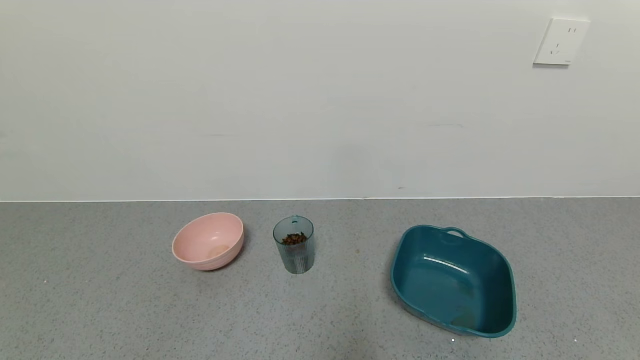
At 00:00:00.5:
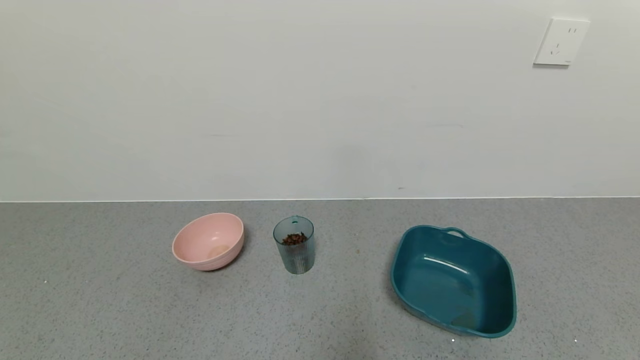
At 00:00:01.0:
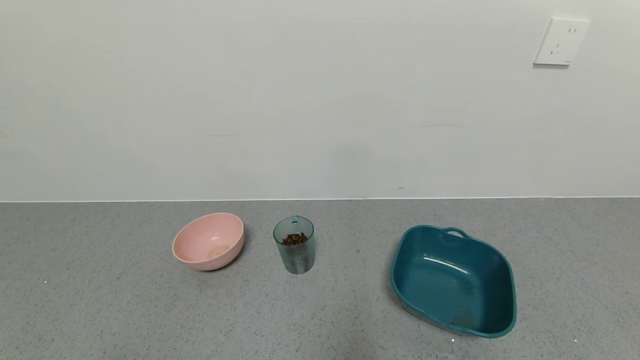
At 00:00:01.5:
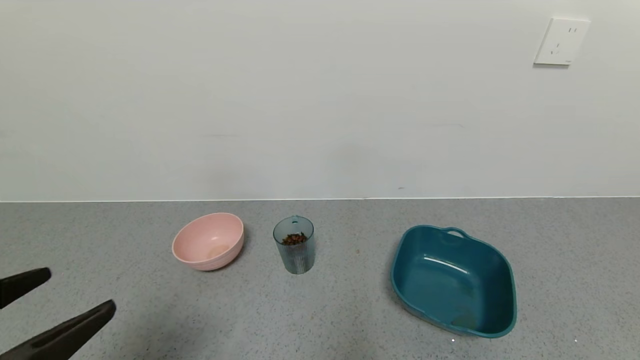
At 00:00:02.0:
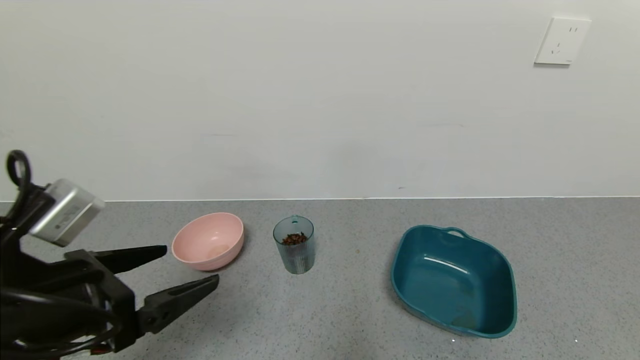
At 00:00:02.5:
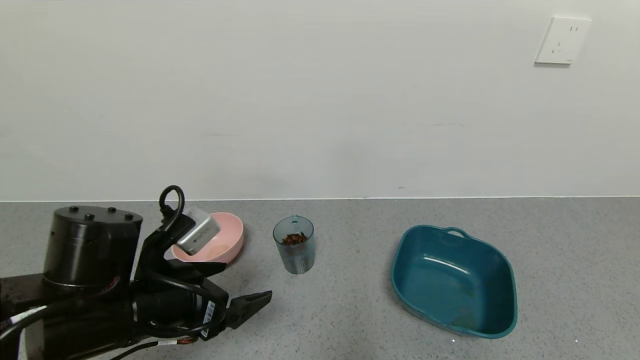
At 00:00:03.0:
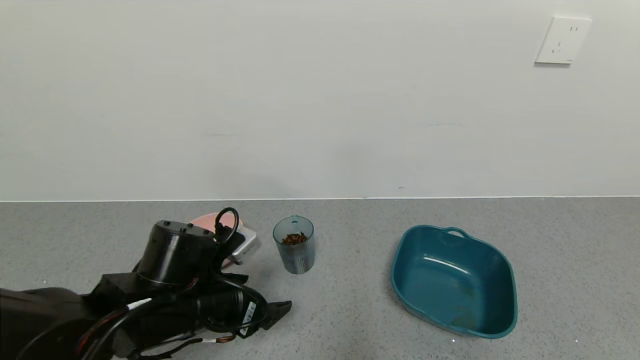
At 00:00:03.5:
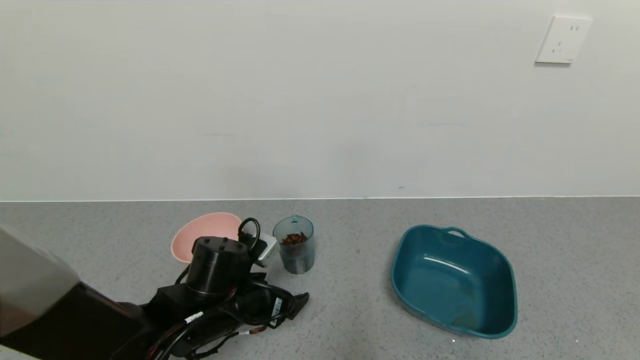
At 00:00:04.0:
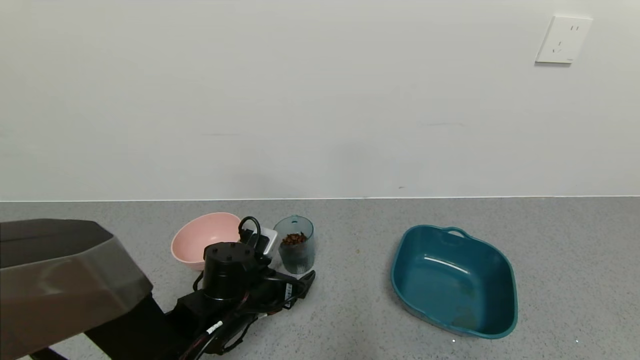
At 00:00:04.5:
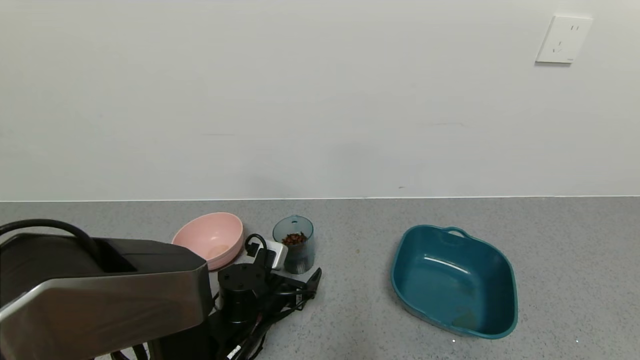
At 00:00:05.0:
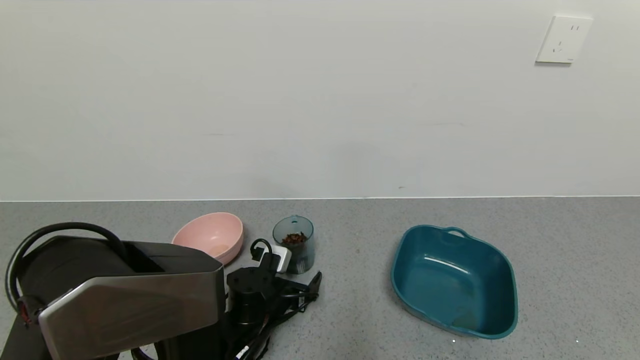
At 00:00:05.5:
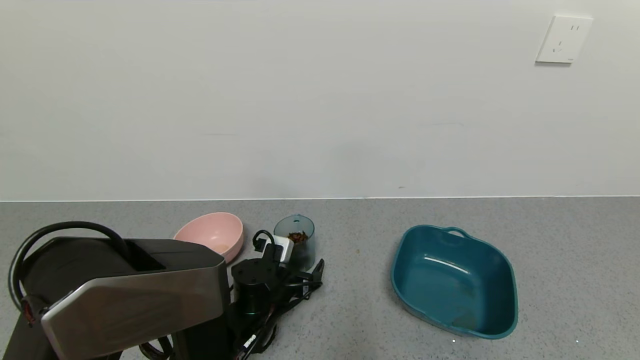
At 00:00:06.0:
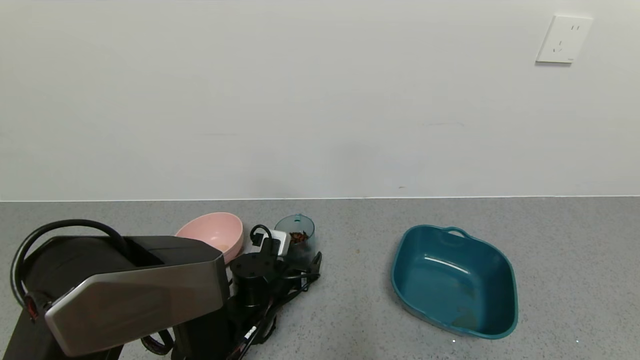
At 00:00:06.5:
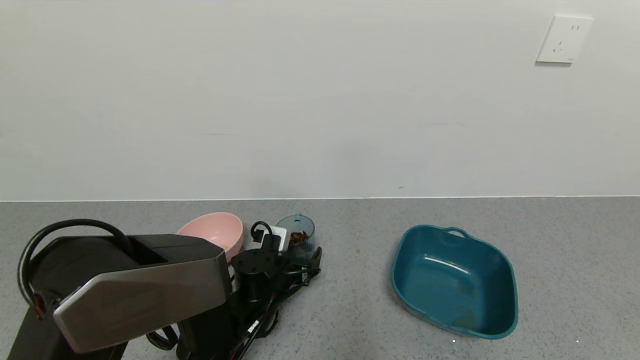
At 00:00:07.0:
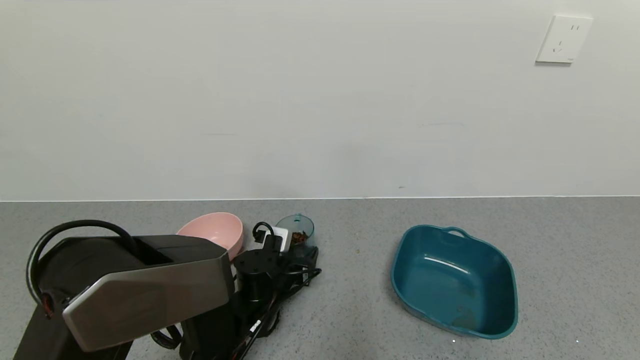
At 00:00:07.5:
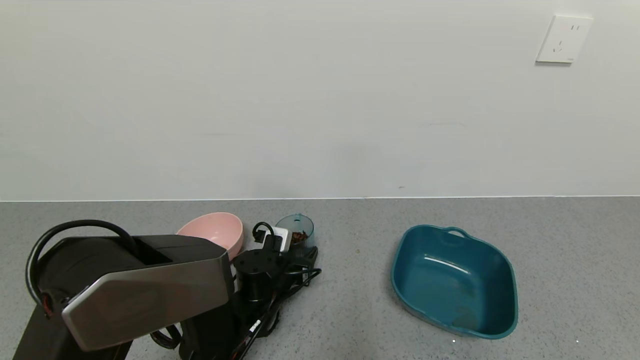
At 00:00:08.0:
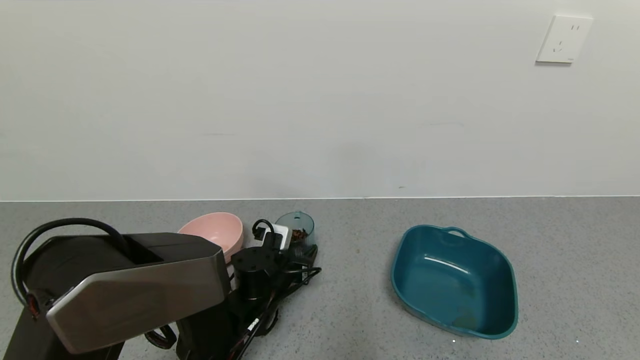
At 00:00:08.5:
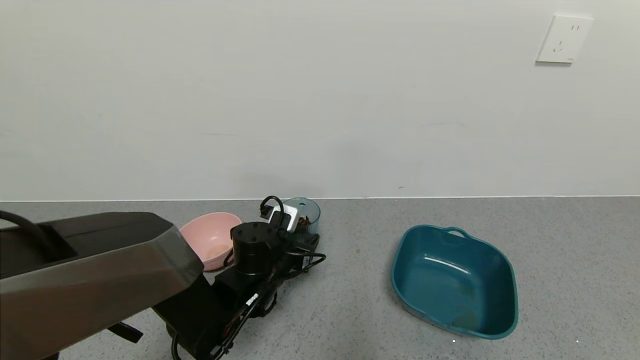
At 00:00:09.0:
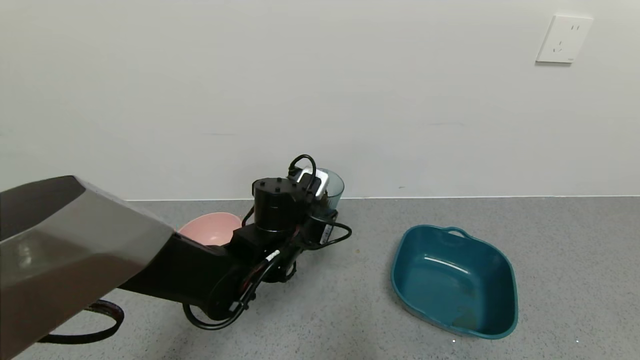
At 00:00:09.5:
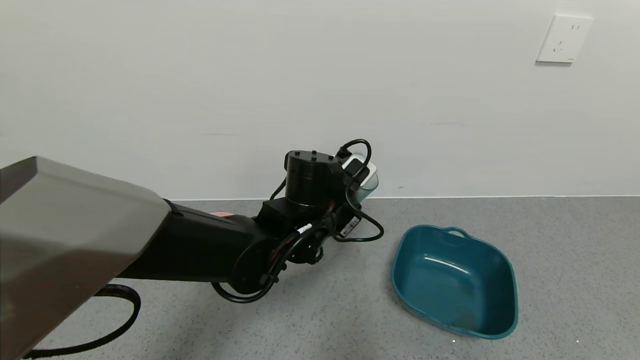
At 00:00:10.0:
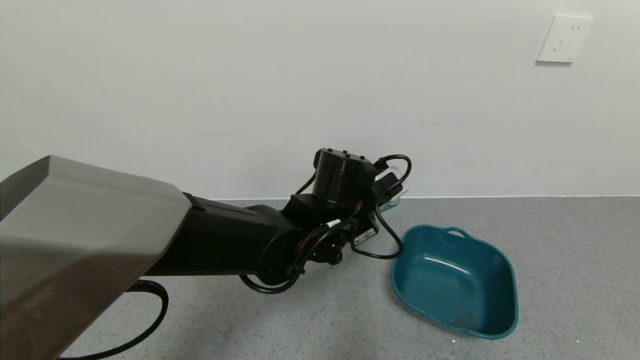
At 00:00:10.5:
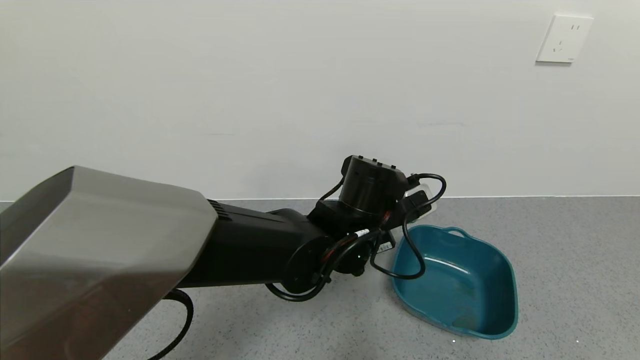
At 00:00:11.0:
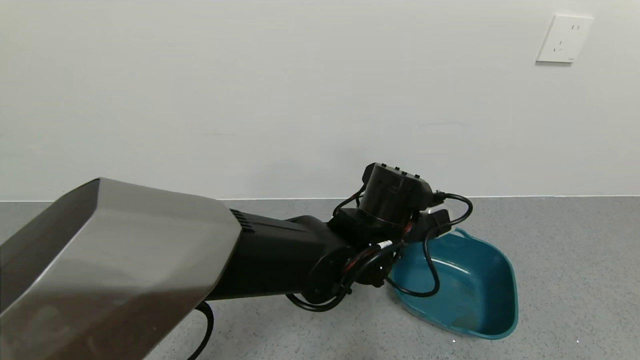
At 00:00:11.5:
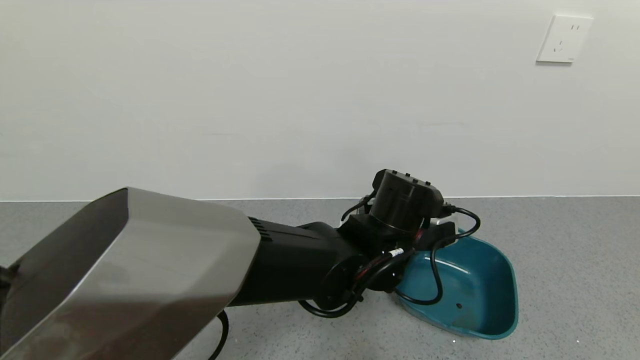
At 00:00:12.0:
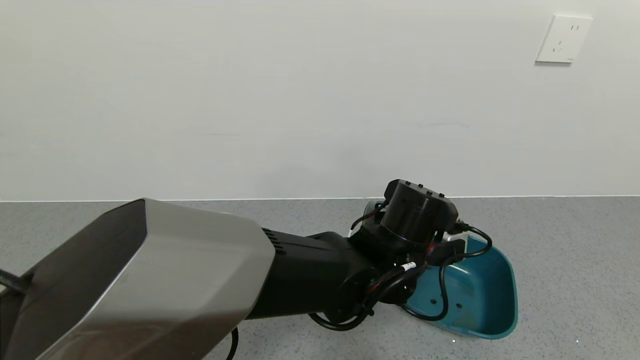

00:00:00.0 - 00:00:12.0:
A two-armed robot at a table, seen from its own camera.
Task of the whole recording: use a gripper to pick up the cup and pour the solid into a bowl or tray.
Step, 00:00:00.0 - 00:00:07.5: Grasp the glass of coffee beans with the left gripper.
00:00:00.0 - 00:00:02.0: The left gripper is displaced forward and upward by some 20 cm.
00:00:02.0 - 00:00:04.0: The left gripper goes approximately 25 cm downward, forward and to the right.
00:00:04.0 - 00:00:06.0: The left gripper changes place by some 5 cm.
00:00:06.0 - 00:00:08.0: The left gripper closes.
00:00:08.0 - 00:00:10.0: The left gripper moves upward and to the right, roughly 20 cm.
00:00:10.0 - 00:00:12.0: The left gripper goes roughly 5 cm to the right.

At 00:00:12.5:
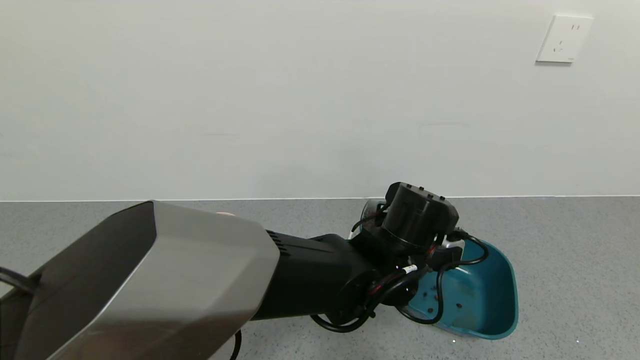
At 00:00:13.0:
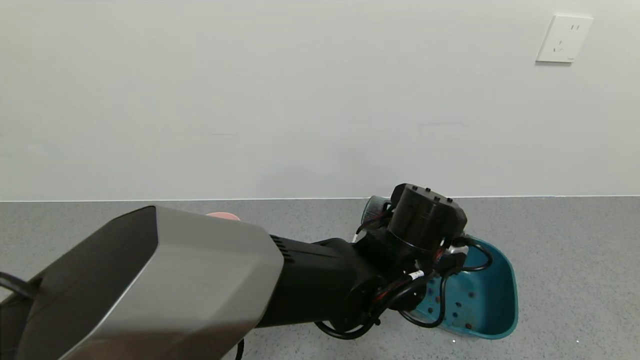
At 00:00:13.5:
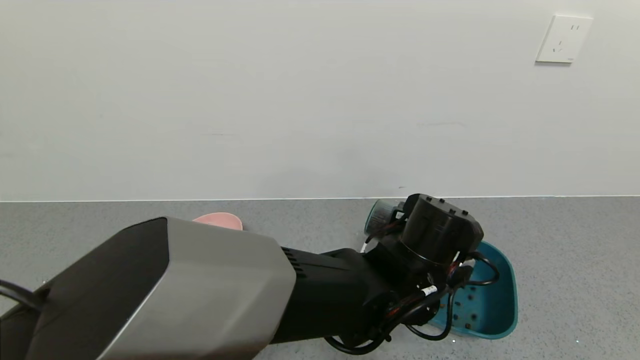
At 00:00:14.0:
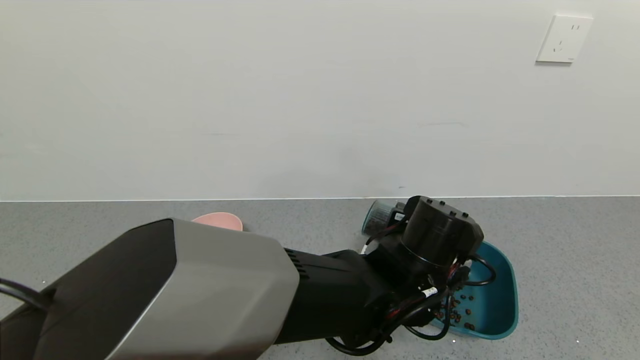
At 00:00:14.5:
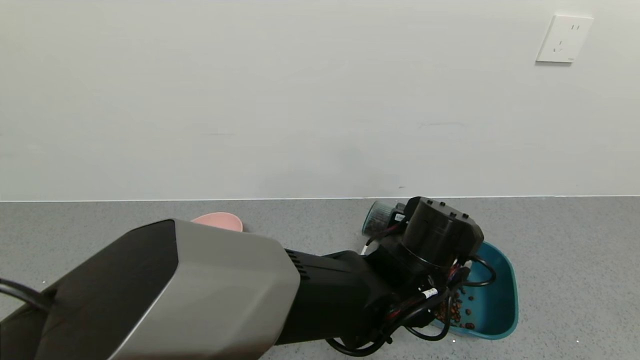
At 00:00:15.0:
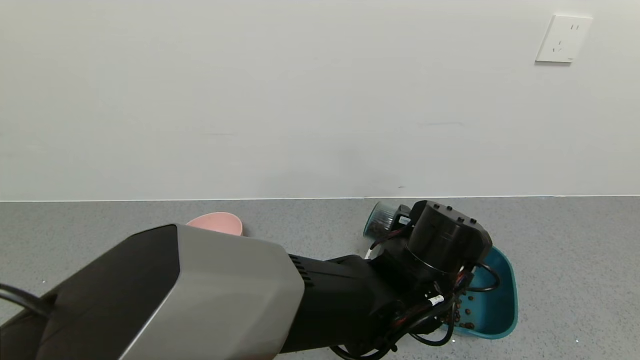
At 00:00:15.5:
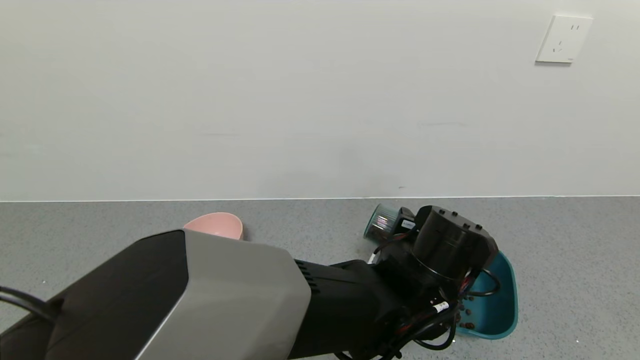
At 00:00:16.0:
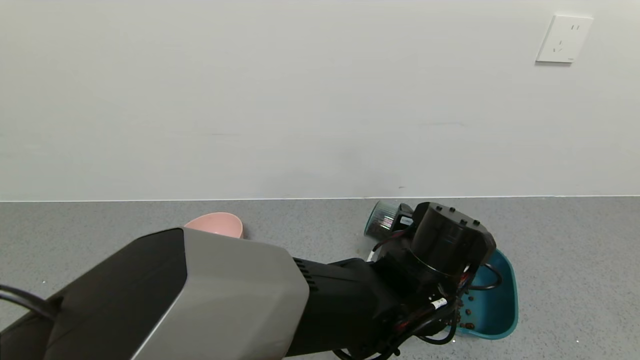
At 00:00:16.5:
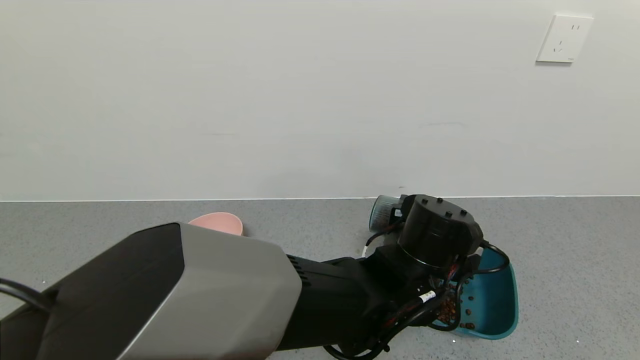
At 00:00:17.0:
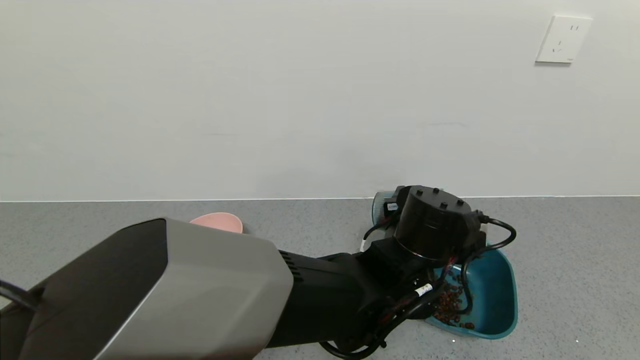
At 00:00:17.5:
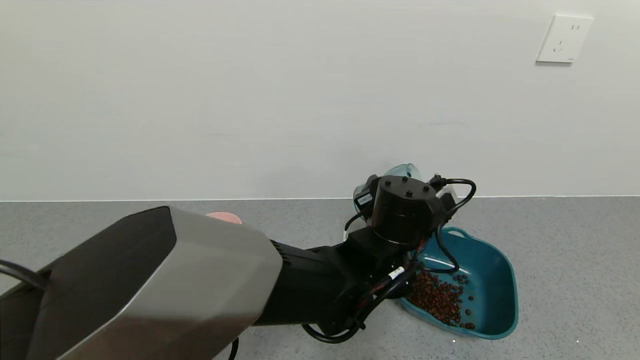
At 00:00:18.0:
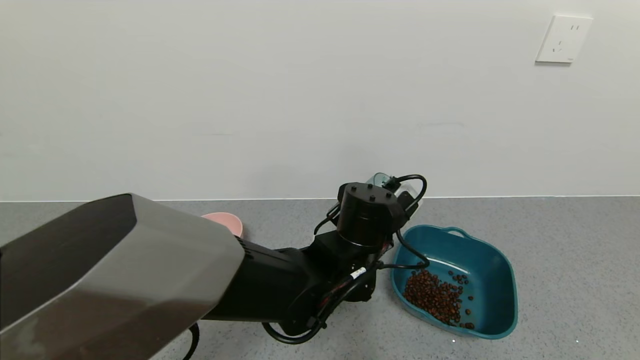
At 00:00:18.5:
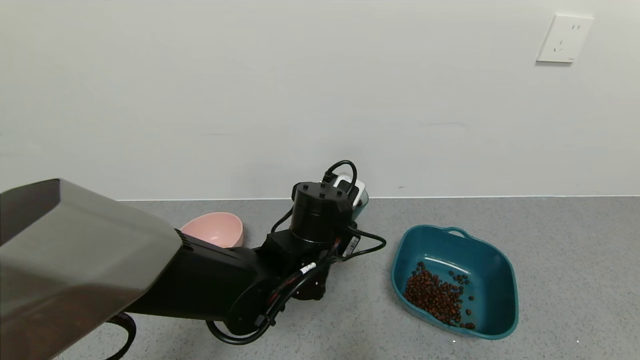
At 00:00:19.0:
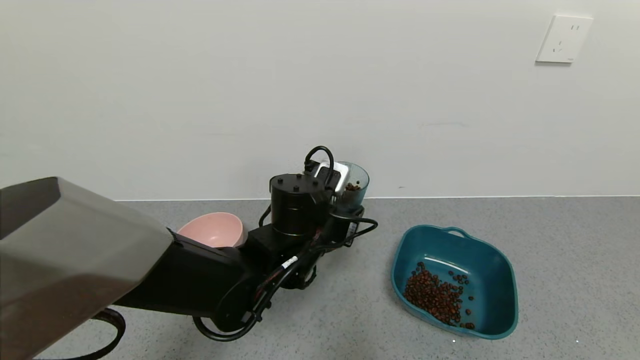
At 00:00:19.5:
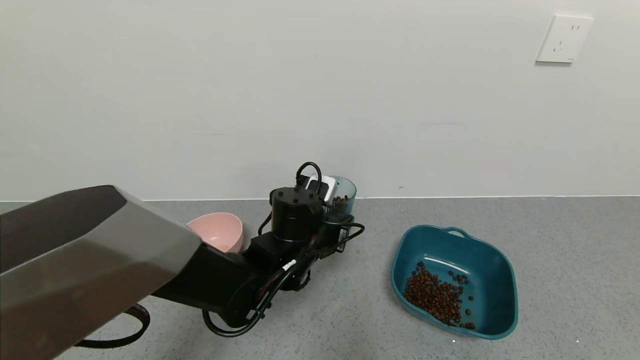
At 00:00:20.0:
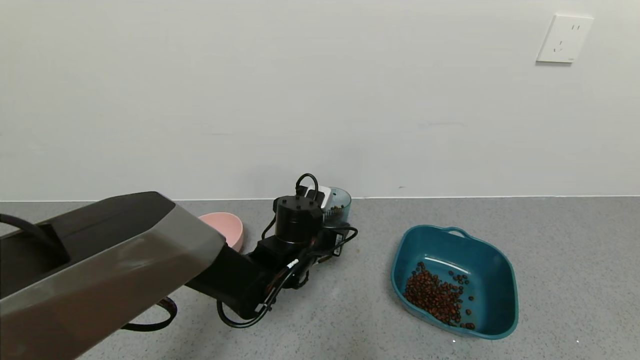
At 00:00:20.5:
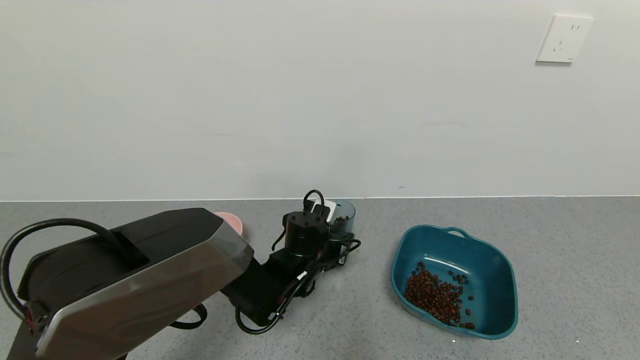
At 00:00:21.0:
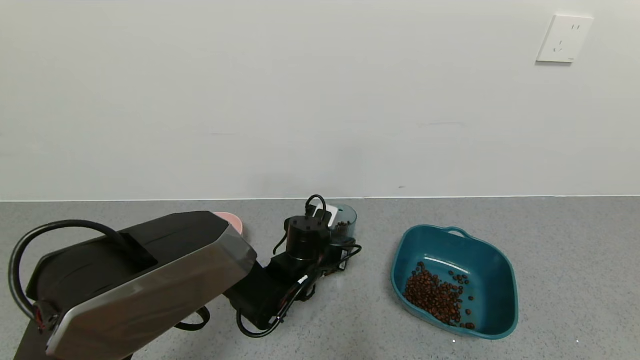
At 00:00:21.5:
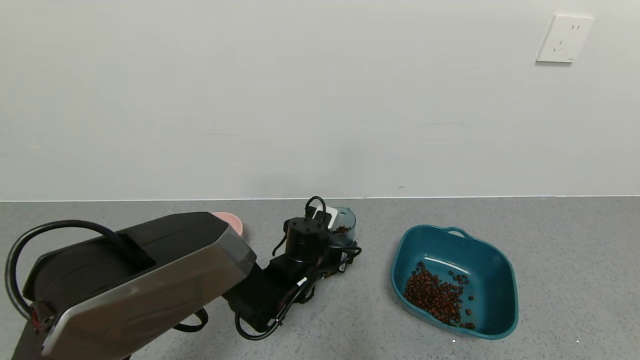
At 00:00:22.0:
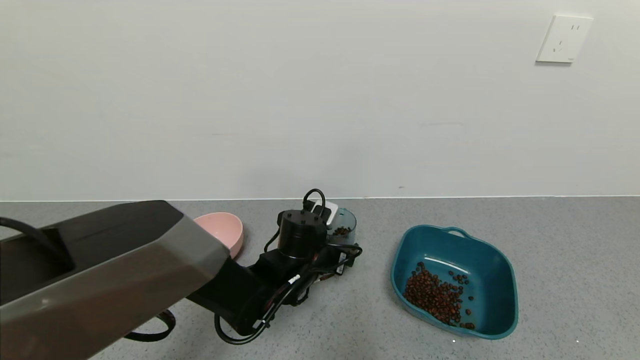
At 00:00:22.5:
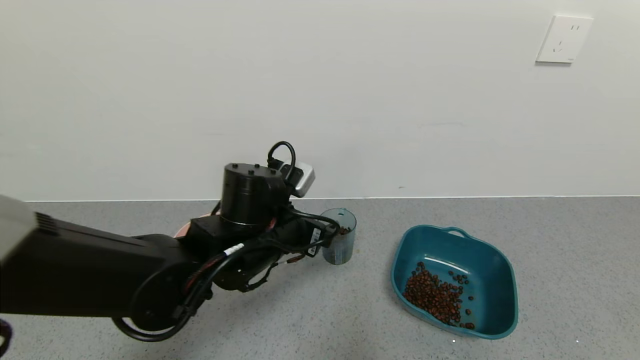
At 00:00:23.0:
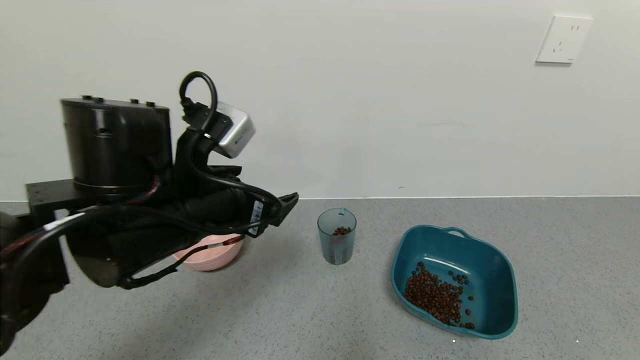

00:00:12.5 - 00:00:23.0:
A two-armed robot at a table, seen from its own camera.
Task of the whole recording: use a gripper to pick up the cup and pour the solid into a bowl or tray.
Step, 00:00:12.5 - 00:00:19.0: Pour the coffee beans into the green bowl with the left gripper.
Step, 00:00:19.5 - 00:00:22.0: Place the glass cup with the left gripper.
00:00:12.5 - 00:00:16.5: The grippers move only a little.
00:00:16.5 - 00:00:19.0: The left gripper goes roughly 15 cm to the left.
00:00:19.0 - 00:00:21.0: The left gripper goes approximately 10 cm downward and forward.
00:00:21.0 - 00:00:23.0: The left gripper travels upward, backward and to the left by about 25 cm, and opens up.
